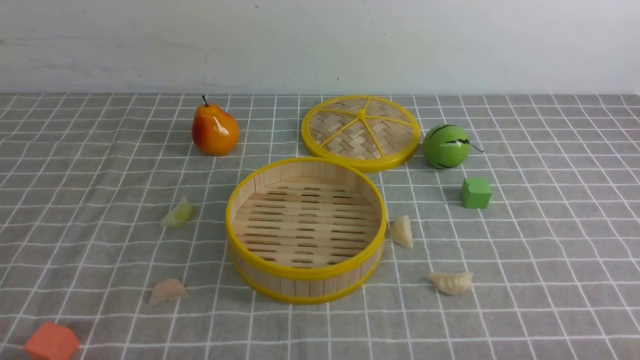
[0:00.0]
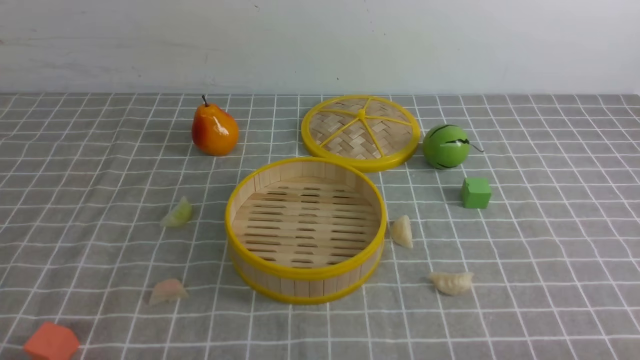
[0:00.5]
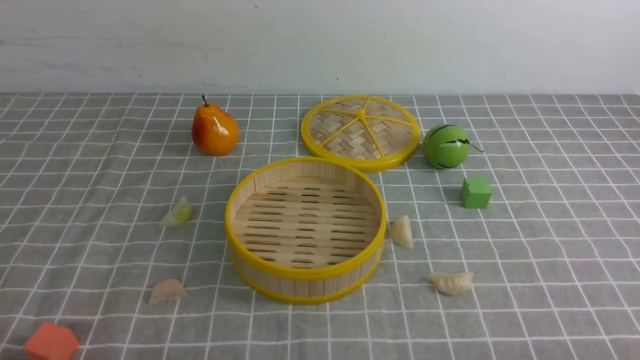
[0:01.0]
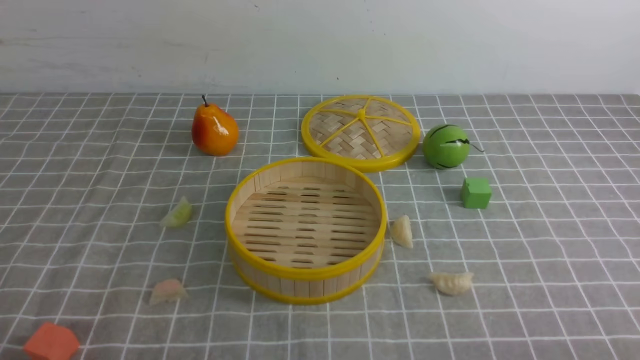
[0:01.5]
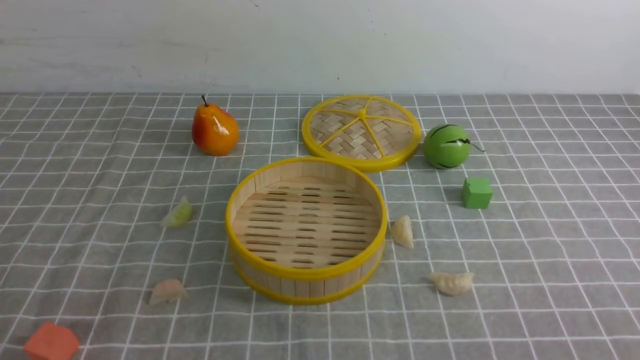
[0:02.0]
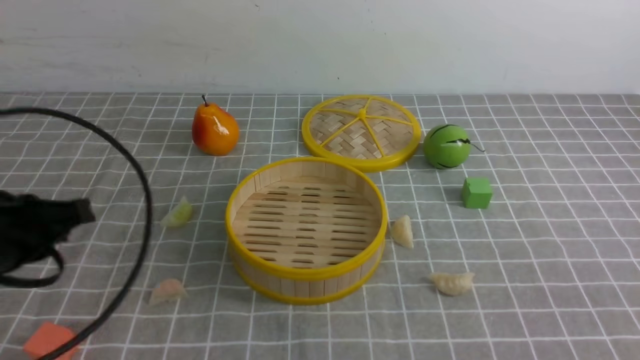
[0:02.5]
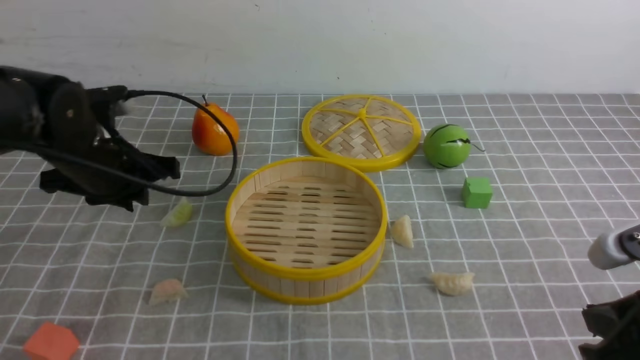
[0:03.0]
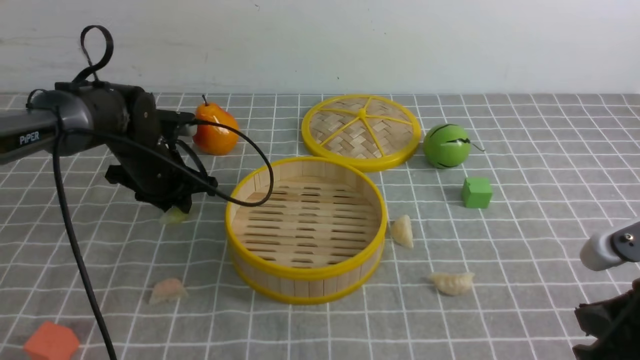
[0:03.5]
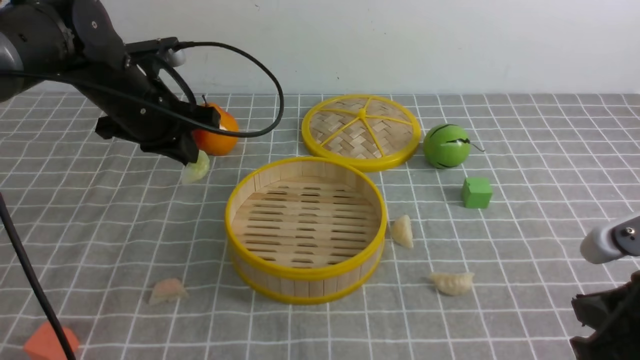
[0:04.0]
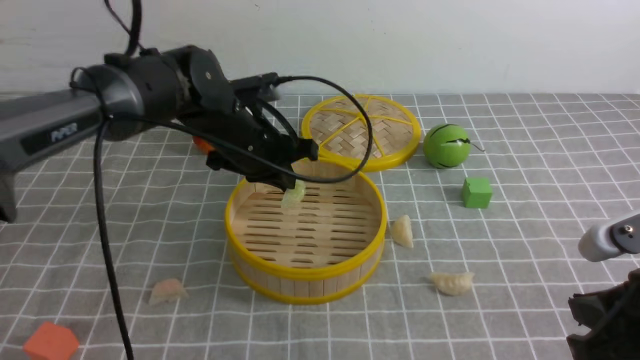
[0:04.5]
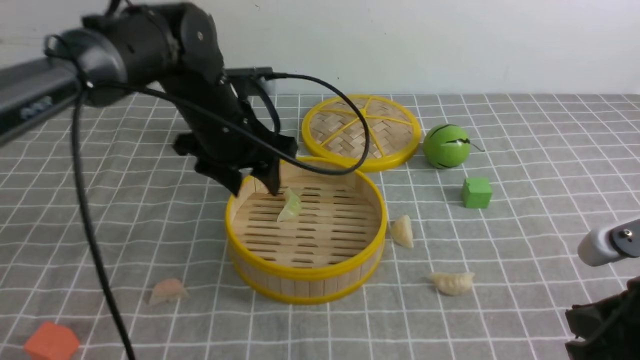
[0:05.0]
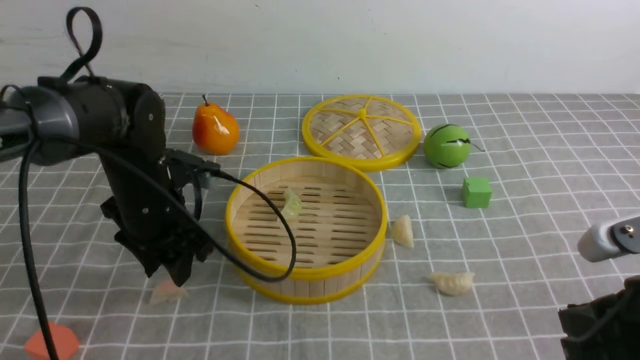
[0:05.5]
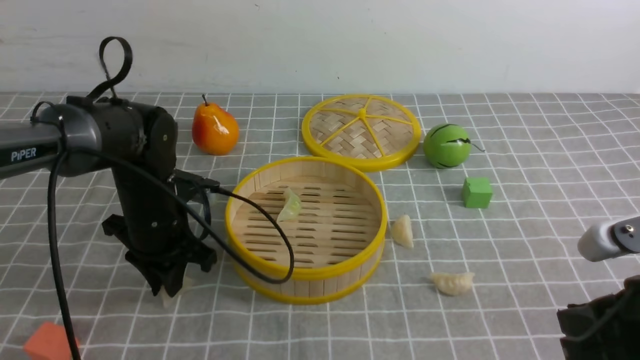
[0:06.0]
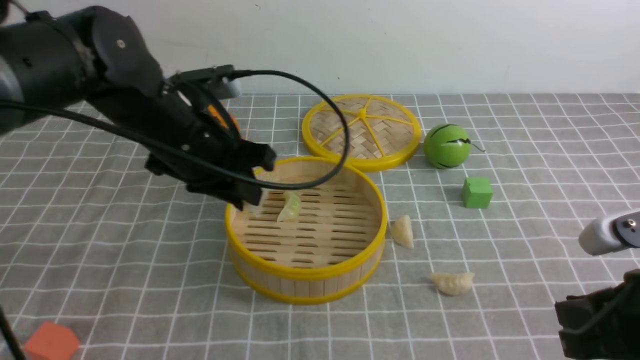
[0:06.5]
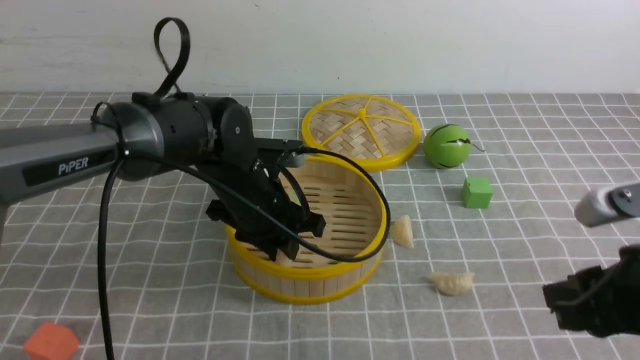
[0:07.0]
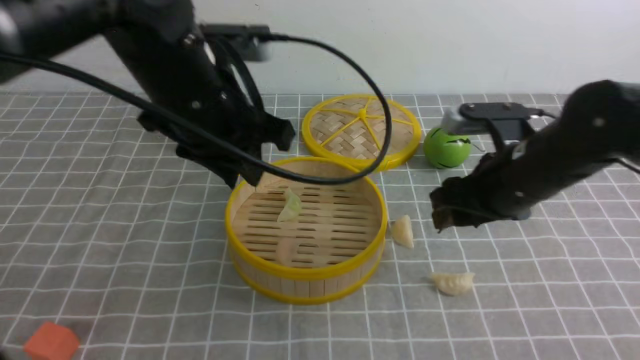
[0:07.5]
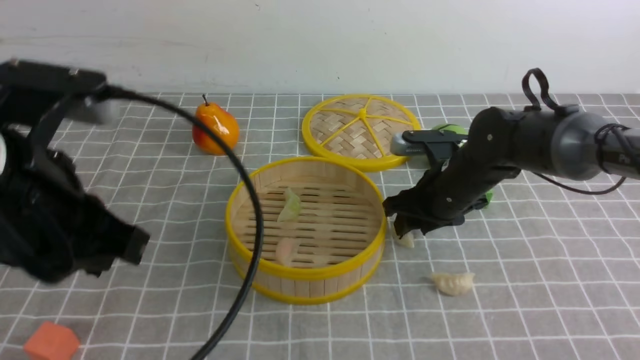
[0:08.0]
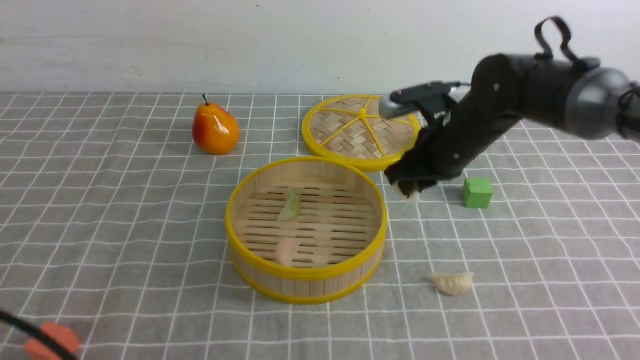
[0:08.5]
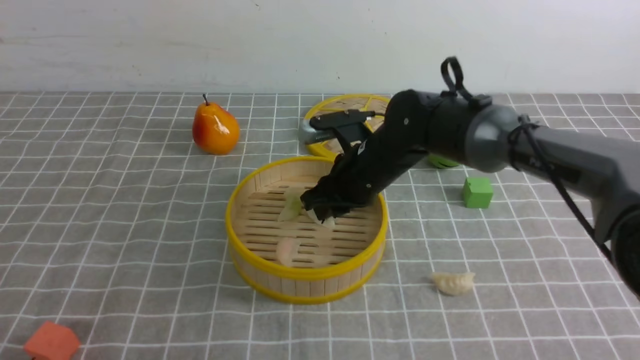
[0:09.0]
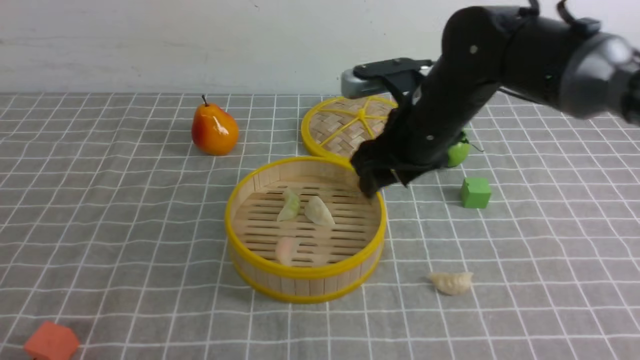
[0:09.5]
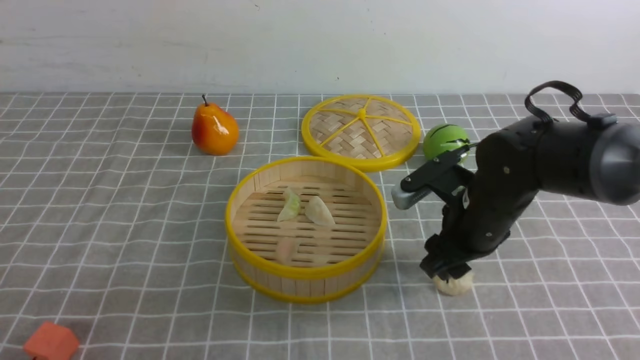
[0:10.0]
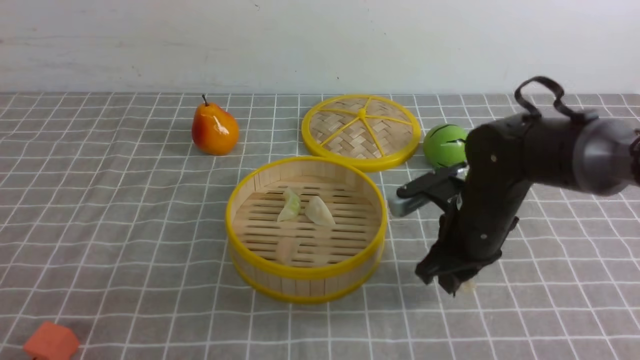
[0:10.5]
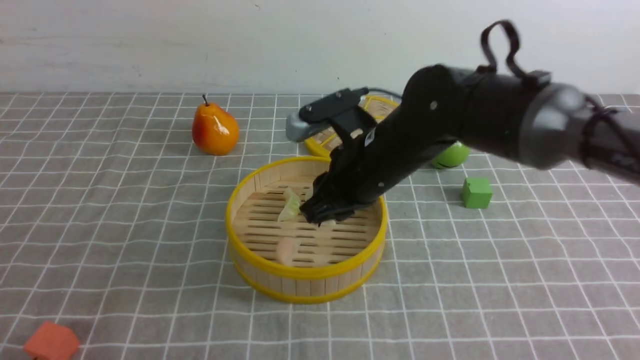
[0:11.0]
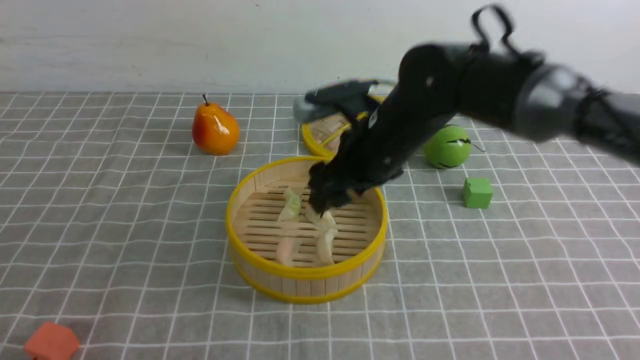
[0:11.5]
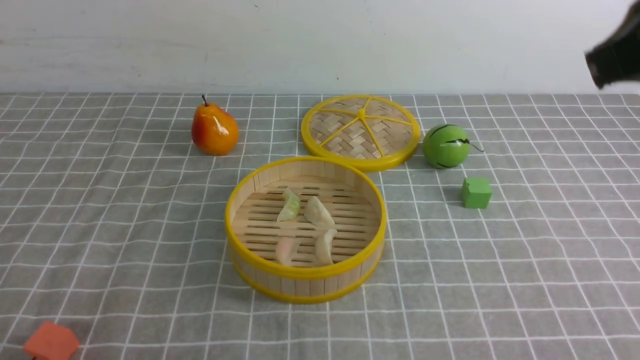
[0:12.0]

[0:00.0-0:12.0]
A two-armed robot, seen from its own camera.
Task of the whole recording: put the dumplings into the steamer on the table with the grey tablecloth.
Step, 0:00.0 to 0:03.5: use the left arm to grab a dumpling.
Step, 0:04.5 to 0:05.0: use the left arm to put the dumpling into the steamer.
Step, 0:05.5 to 0:06.0: use the left arm to grab a dumpling.
Step, 0:06.5 to 0:07.0: use the left arm to put the dumpling into the steamer.
Step, 0:07.5 to 0:08.0: use the right arm to grab a dumpling.
Step, 0:08.5 to 0:09.0: use the right arm to put the dumpling into the steamer.
Step, 0:09.5 to 0:10.5: use the right arm to grab a dumpling.
Step, 0:11.0 to 0:11.5: use the right arm to put the dumpling into the steamer.
0:02.0 to 0:04.0: The right gripper travels forward and to the left by roughly 15 cm. Meanwhile the left gripper goes roughly 40 cm forward, and closes.
0:04.0 to 0:06.0: The left gripper goes roughly 10 cm downward and backward, goes to the right and returns, some 10 cm each way, and opens its fingers.
0:06.0 to 0:08.0: The left gripper swings up and down, about 20 cm each way, with 2 reversals, and closes its fingers, while the right gripper moves forward, some 25 cm, and opens up.
0:08.0 to 0:10.0: The right gripper is displaced backward by some 5 cm, reaches some 10 cm to the left, then returns, and closes, then opens again; the left gripper goes about 20 cm backward, downward and to the left.
0:10.0 to 0:12.0: The right gripper goes some 30 cm upward and backward, and closes up.

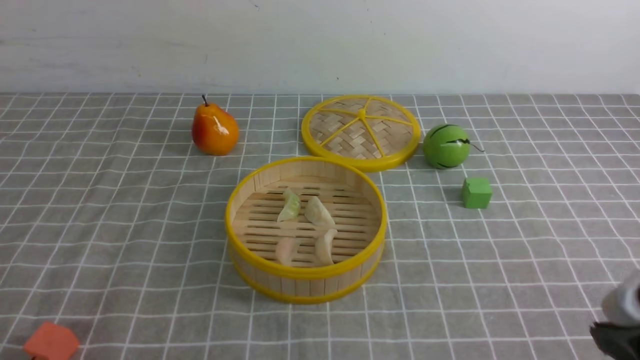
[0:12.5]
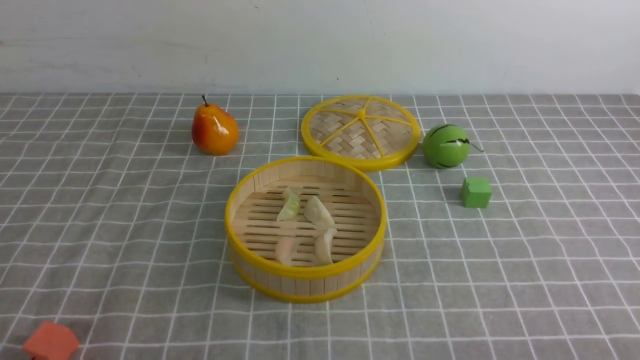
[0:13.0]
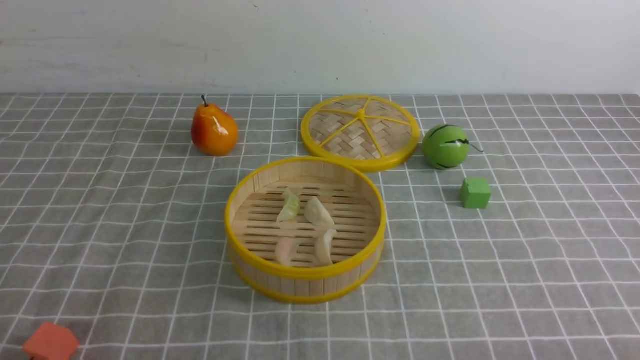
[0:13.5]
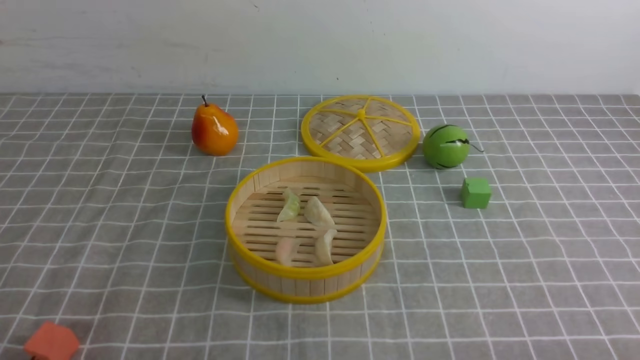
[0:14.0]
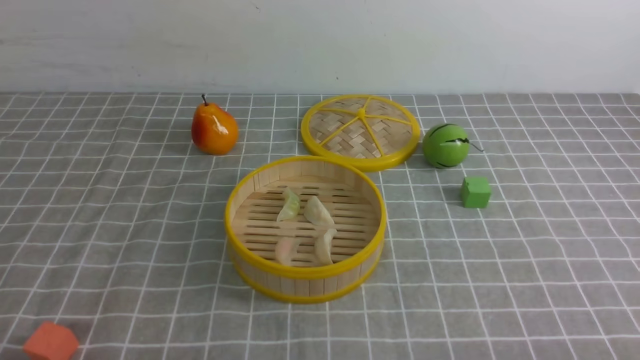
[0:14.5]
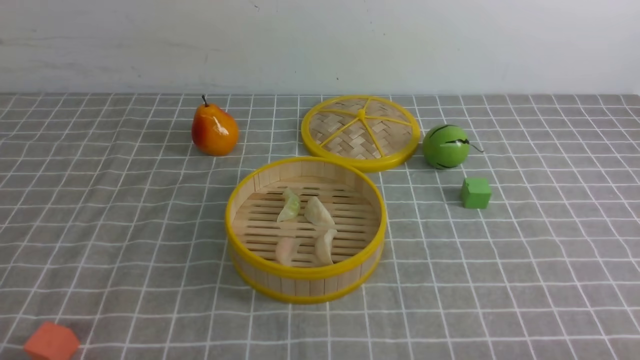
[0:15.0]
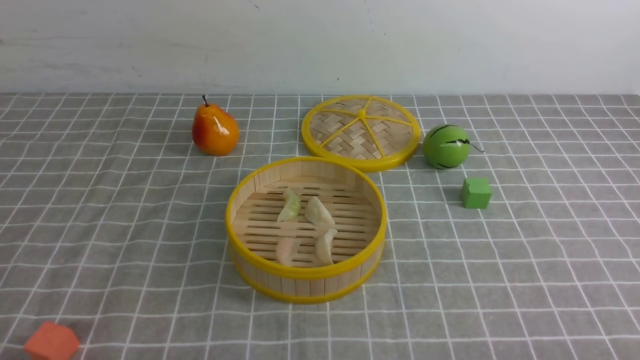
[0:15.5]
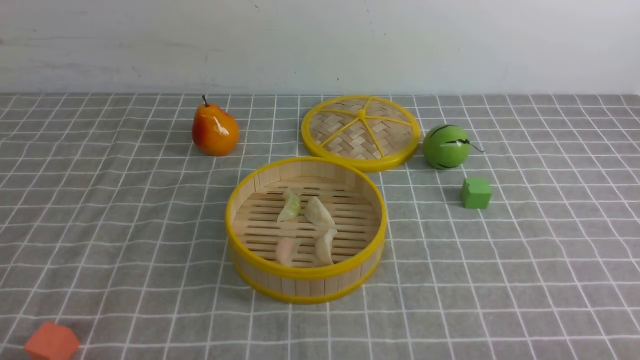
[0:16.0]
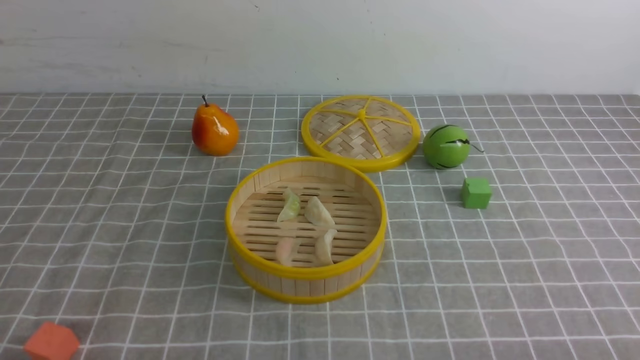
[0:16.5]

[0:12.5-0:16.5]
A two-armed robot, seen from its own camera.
Task of the whole recording: put the dumplings into the steamer on the table with the grey tablecloth.
0:12.5 to 0:14.5: The right gripper shifts roughly 15 cm downward, backward and to the right.
